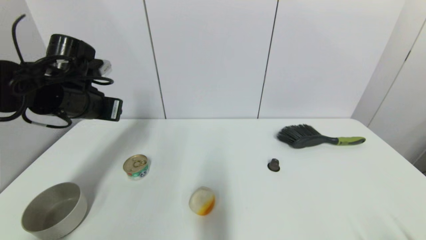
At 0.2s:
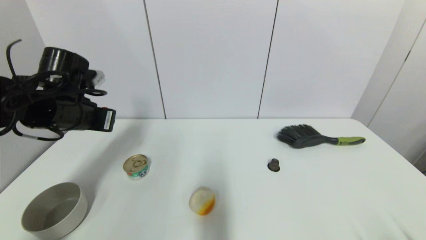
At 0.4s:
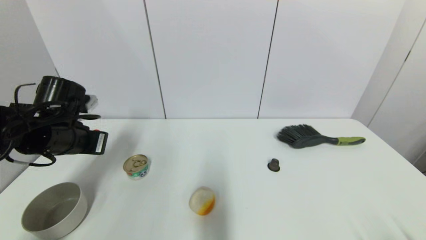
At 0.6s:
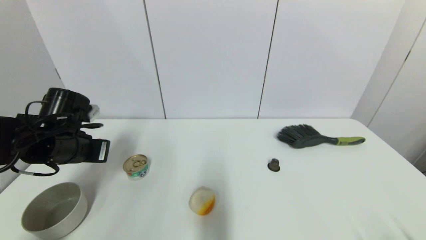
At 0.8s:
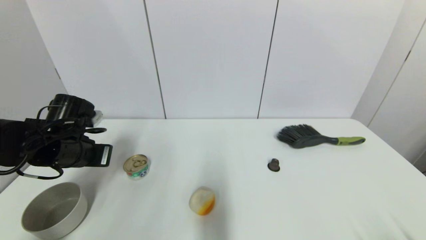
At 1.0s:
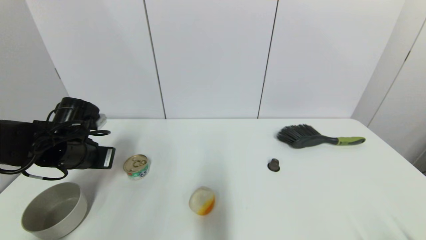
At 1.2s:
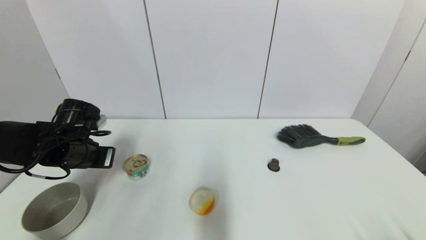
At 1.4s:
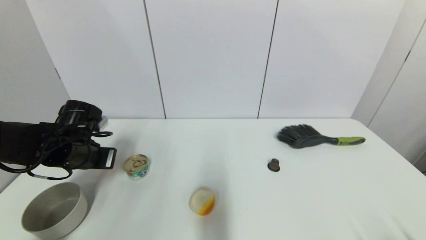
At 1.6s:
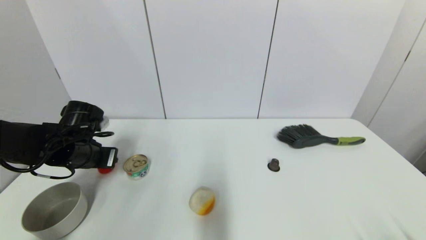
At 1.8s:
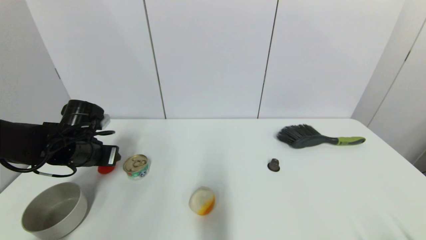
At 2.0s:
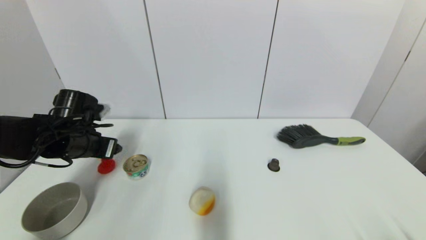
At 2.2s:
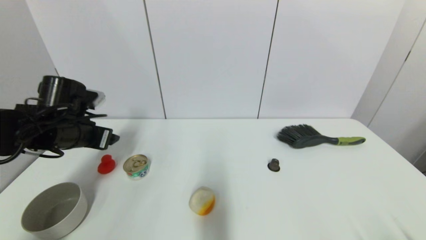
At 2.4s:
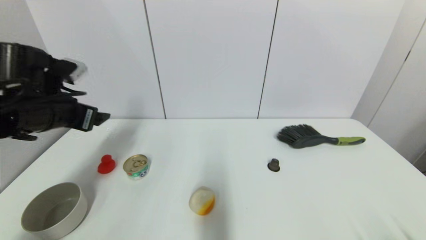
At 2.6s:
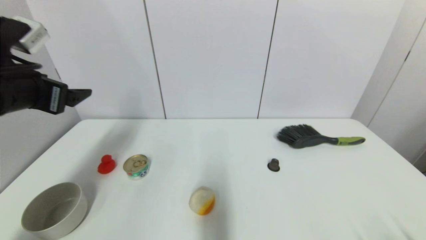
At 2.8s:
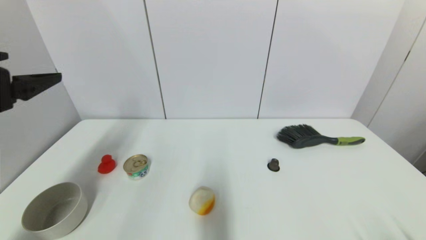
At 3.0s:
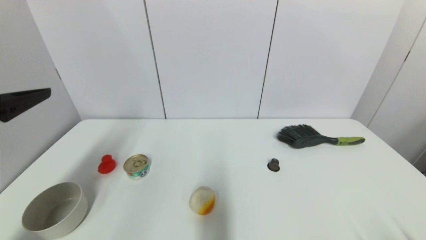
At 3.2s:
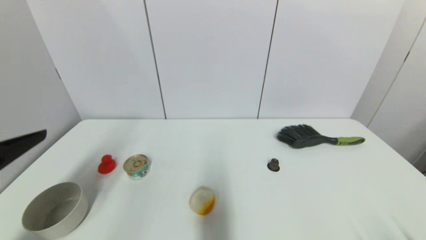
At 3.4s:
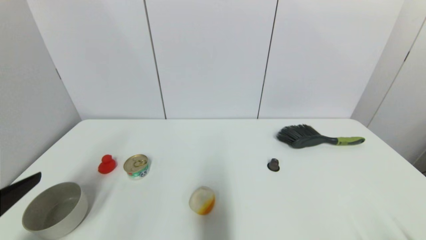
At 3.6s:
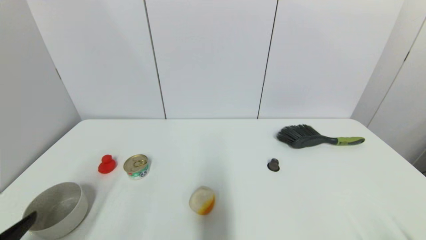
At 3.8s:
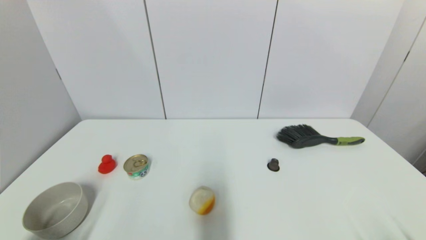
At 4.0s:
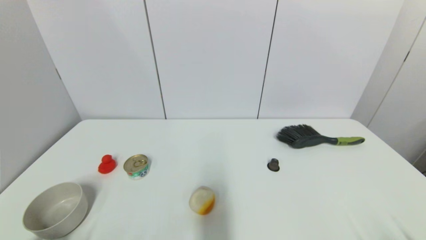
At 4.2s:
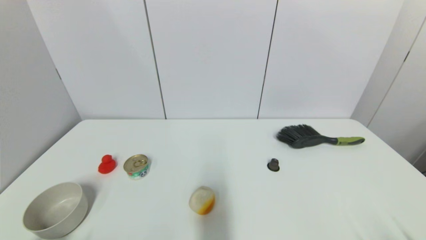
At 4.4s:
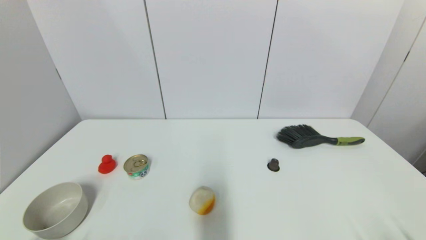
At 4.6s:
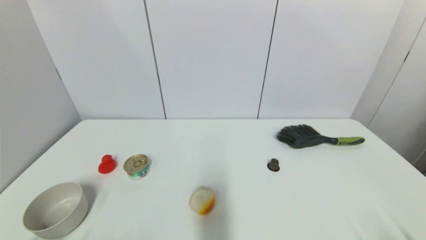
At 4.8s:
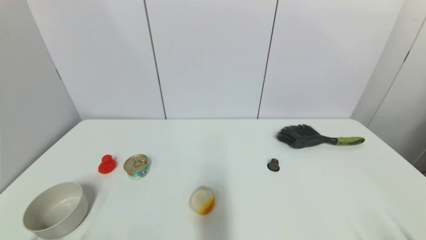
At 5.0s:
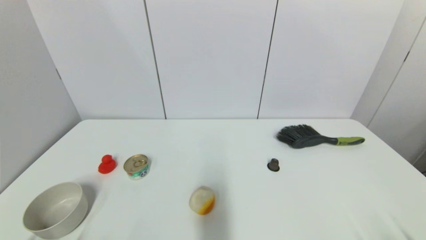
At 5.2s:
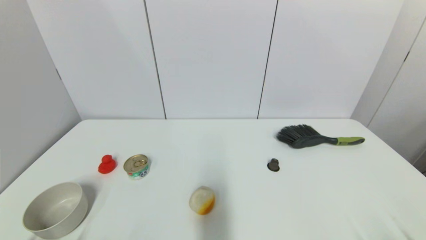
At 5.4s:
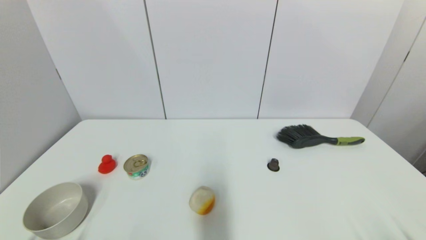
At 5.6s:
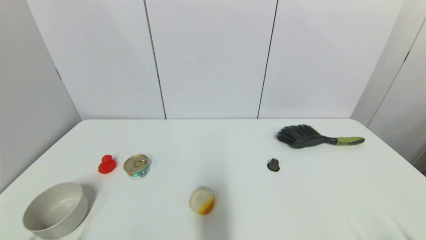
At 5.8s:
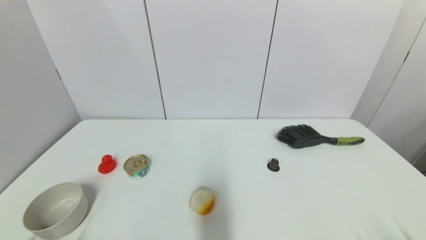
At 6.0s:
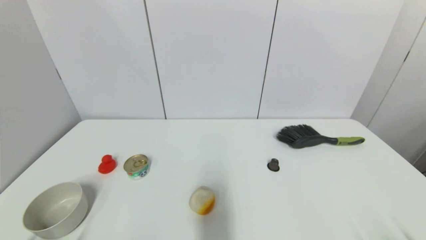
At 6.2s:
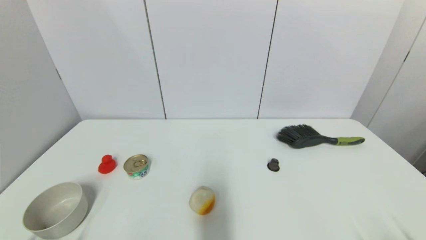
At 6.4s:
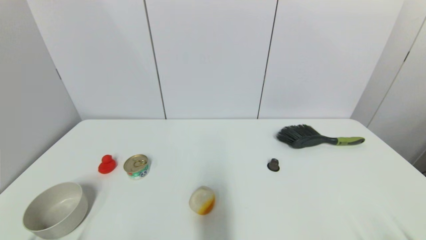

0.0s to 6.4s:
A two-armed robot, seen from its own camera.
Step, 0.0s to 2.0s: Place the red duck on the table with left gripper.
0.0s to 1.6s: The left gripper is displaced downward by roughly 10 cm.
1.6s to 3.2s: The left gripper travels backward and upward by about 25 cm, and opens up.
3.2s to 4.8s: The left gripper is displaced downward and backward by roughly 20 cm.
4.8s to 6.4s: Both grippers stay about where they are.
